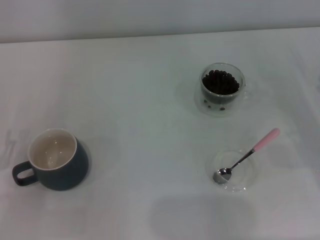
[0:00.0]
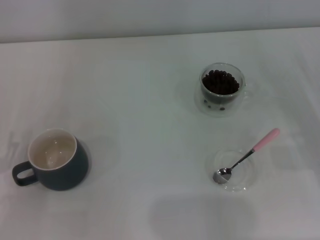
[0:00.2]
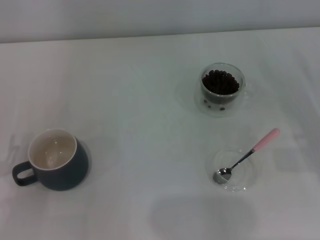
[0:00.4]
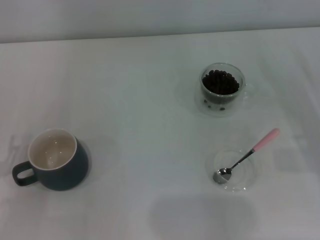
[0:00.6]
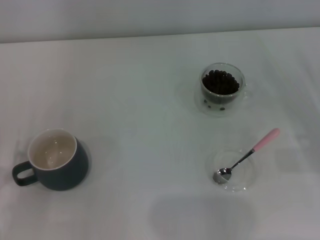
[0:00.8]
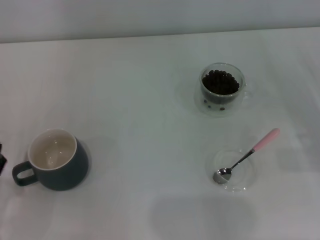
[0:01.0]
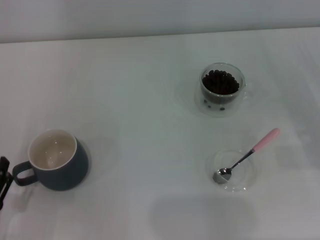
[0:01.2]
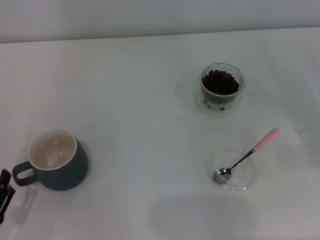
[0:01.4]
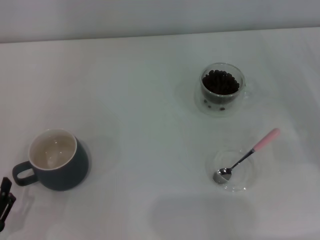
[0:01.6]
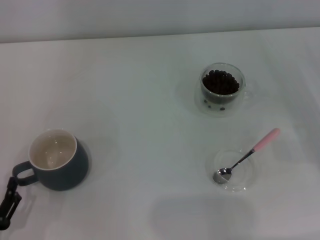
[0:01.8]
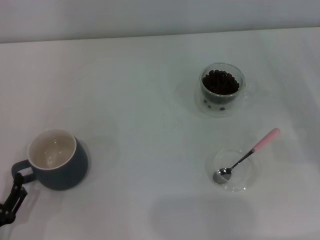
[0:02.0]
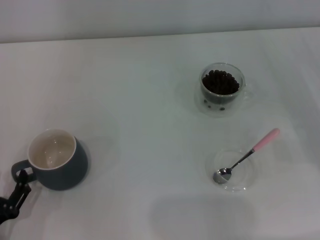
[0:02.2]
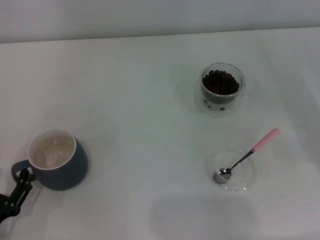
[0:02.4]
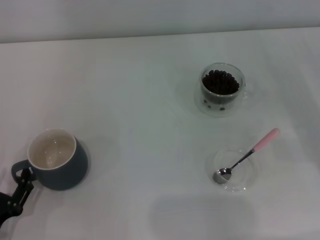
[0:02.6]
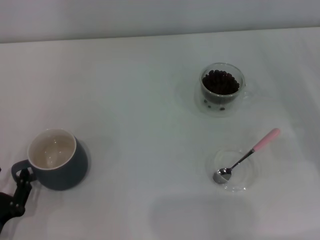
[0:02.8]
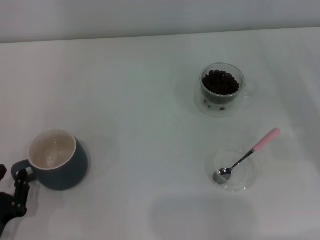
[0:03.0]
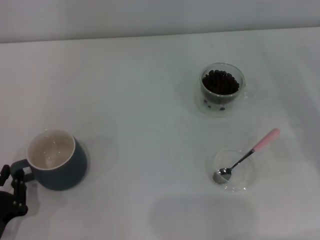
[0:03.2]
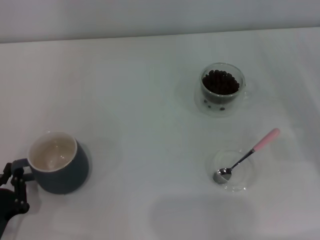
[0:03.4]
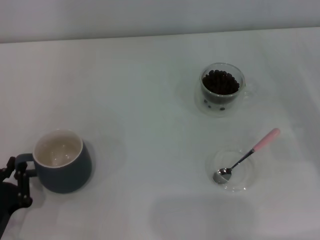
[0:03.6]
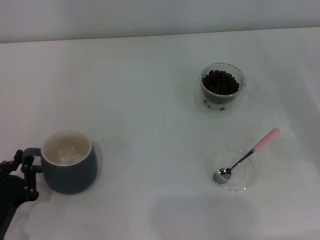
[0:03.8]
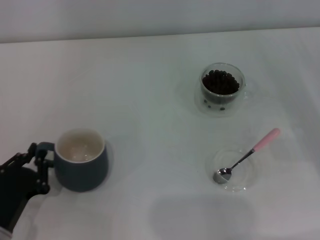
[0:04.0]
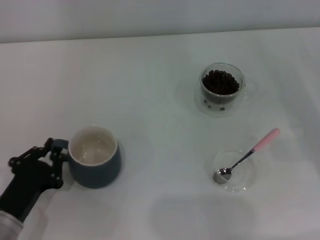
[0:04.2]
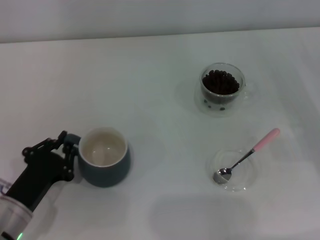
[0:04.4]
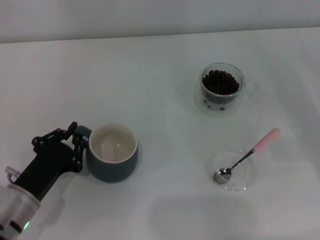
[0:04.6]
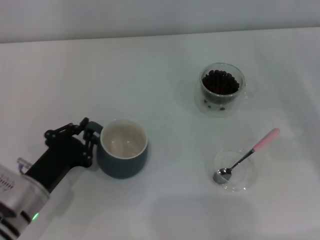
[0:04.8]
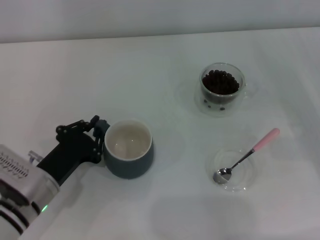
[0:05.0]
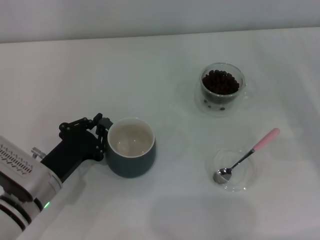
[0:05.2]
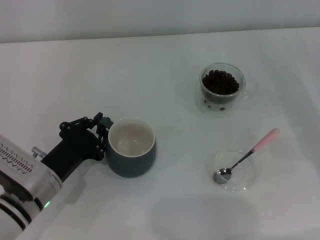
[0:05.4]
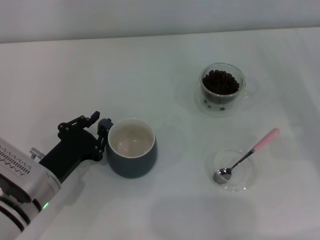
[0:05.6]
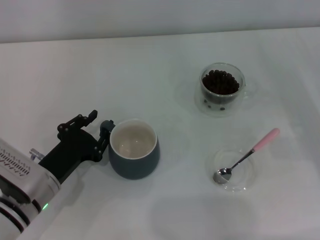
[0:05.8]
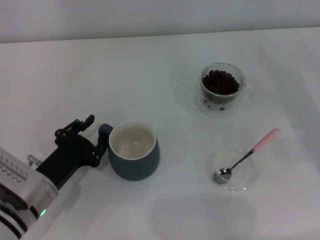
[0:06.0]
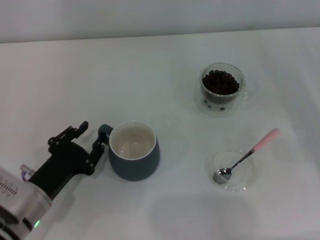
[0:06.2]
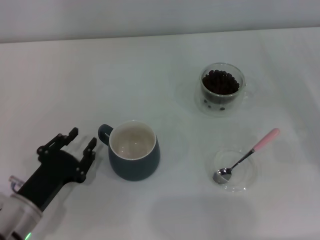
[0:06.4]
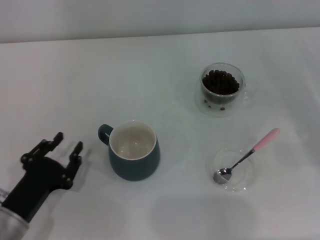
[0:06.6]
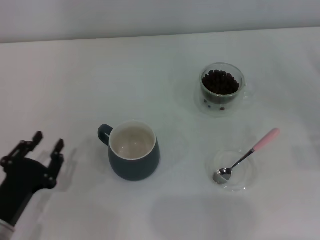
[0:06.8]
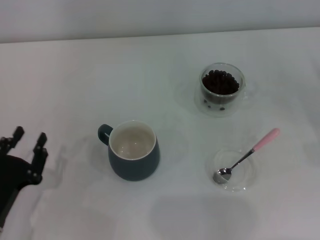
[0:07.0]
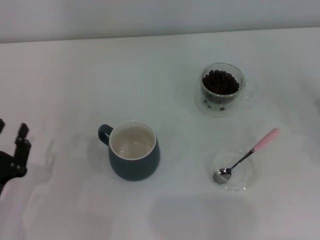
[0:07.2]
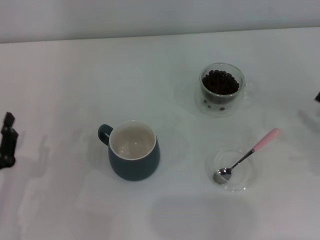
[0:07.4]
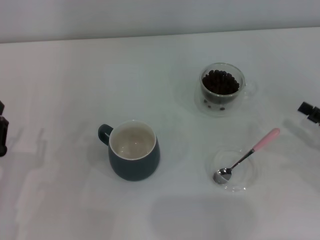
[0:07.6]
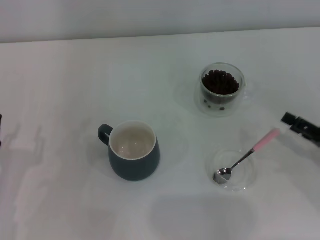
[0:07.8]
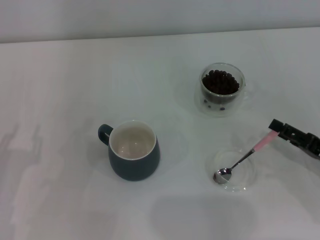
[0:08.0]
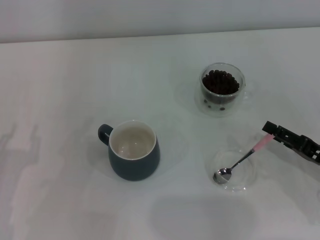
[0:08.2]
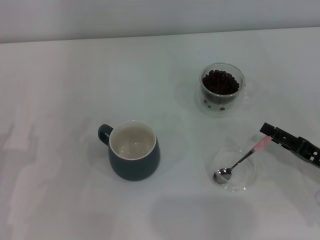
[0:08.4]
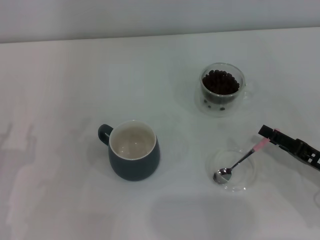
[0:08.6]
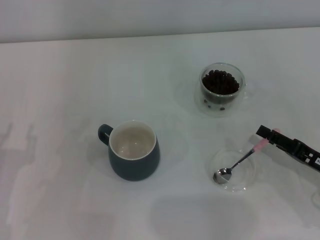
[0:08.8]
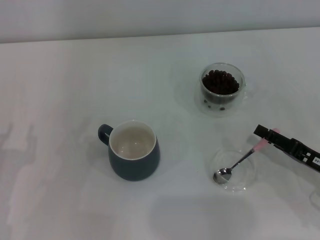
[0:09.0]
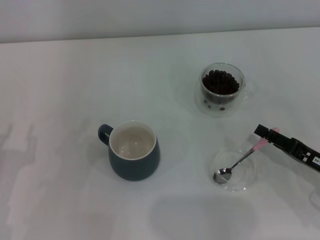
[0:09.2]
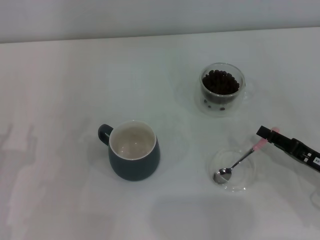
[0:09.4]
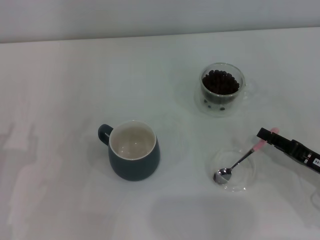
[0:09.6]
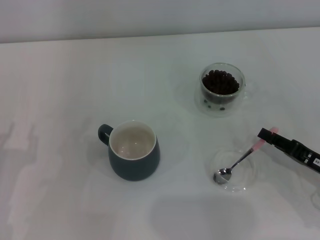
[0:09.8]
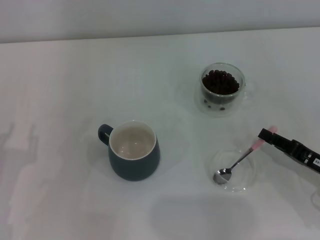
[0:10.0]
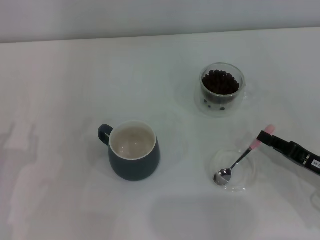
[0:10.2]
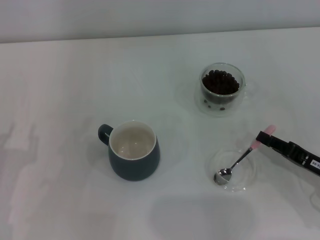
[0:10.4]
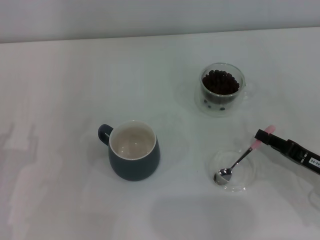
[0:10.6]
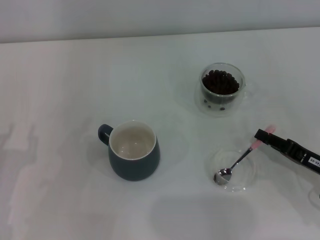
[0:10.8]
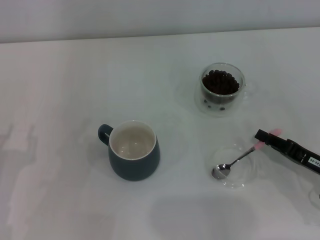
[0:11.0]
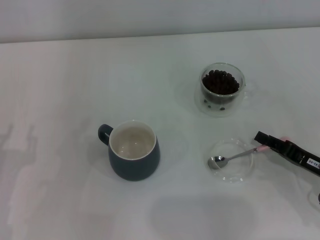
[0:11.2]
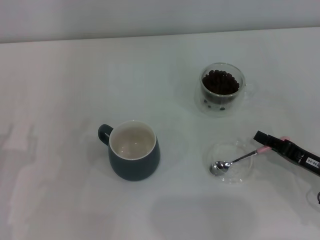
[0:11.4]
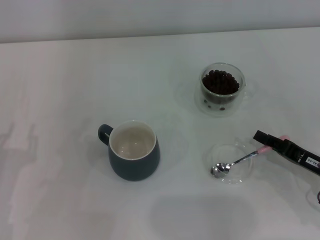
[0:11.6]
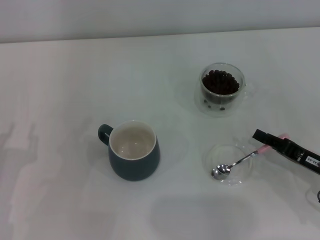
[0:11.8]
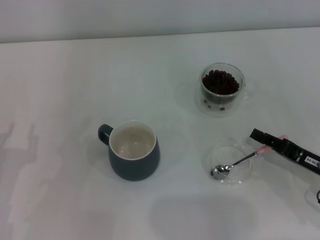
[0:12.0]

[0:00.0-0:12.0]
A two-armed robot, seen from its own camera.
Task of the whole recording: Use a pink spoon to take out the coffee beans from the glass and pour them into the gray cup.
Step, 0:00.0 to 0:06.6: Move the cup to the center of view with the left gripper.
0:00.0 to 0:01.6: The left gripper shifts roughly 10 cm backward.
0:01.6 to 0:03.0: The left gripper closes up.
0:03.0 to 0:04.4: The left gripper is displaced forward by approximately 5 cm, and closes.
0:04.4 to 0:06.0: The grippers make only small movements.
0:06.0 to 0:07.6: The left gripper goes approximately 10 cm to the left and backward.
0:07.6 to 0:09.0: The right gripper moves to the left, approximately 5 cm.
0:09.0 to 0:10.4: The right gripper closes up.
0:10.4 to 0:12.0: The two grippers keep their place.

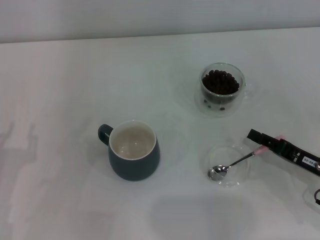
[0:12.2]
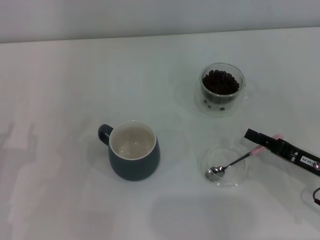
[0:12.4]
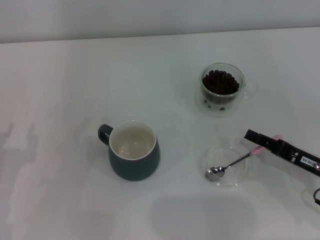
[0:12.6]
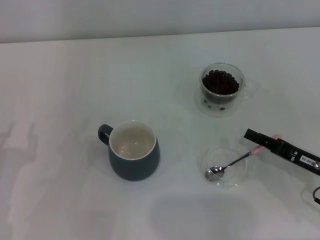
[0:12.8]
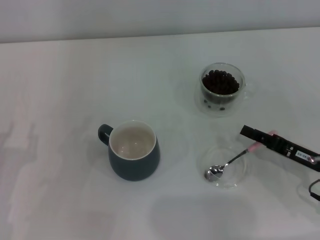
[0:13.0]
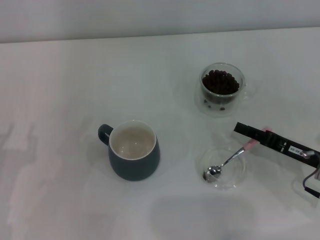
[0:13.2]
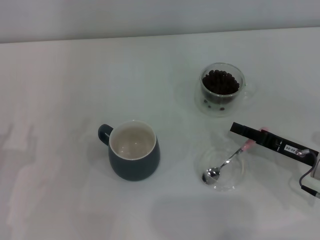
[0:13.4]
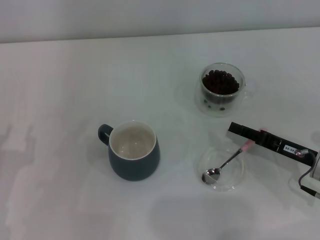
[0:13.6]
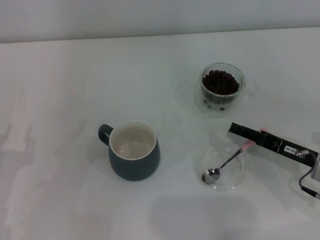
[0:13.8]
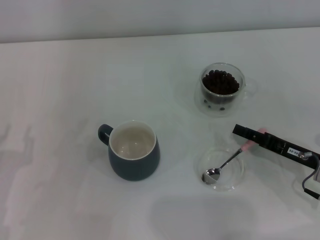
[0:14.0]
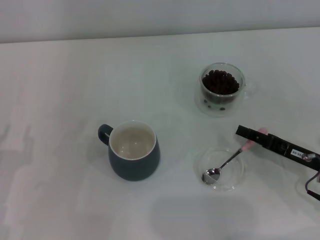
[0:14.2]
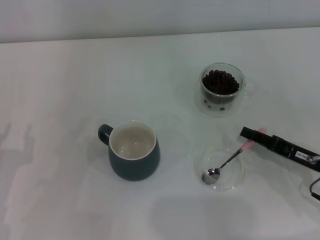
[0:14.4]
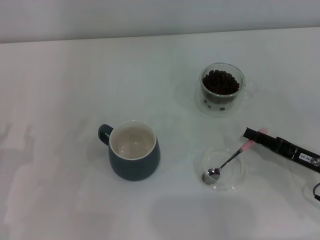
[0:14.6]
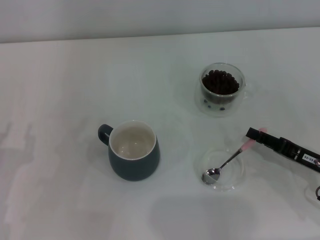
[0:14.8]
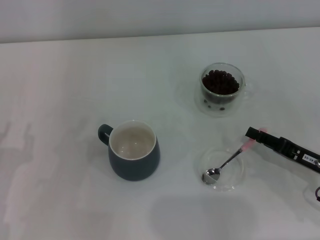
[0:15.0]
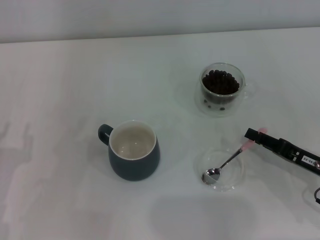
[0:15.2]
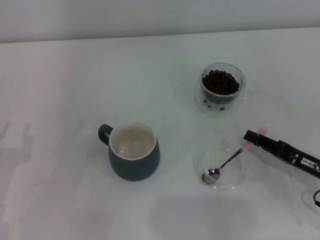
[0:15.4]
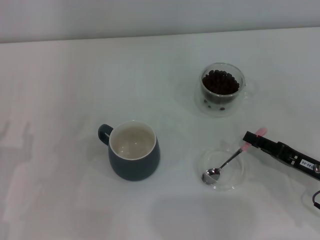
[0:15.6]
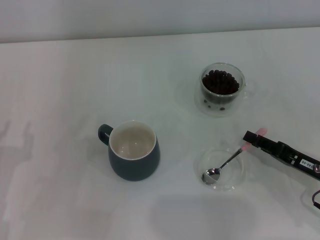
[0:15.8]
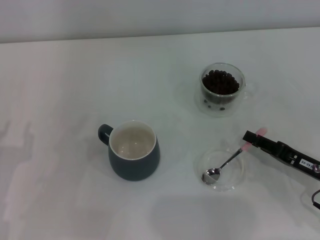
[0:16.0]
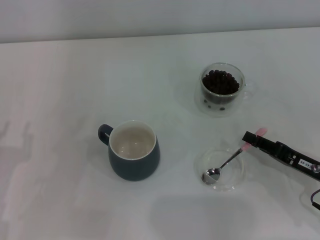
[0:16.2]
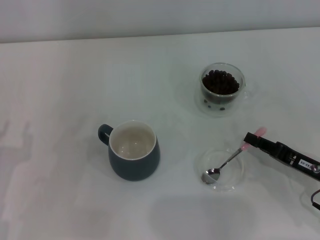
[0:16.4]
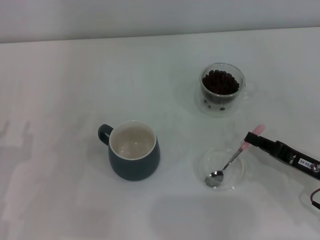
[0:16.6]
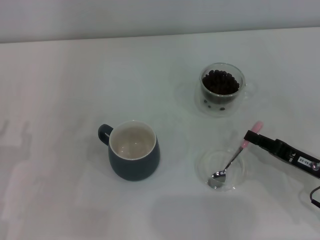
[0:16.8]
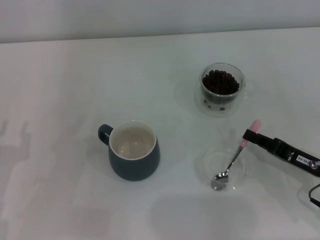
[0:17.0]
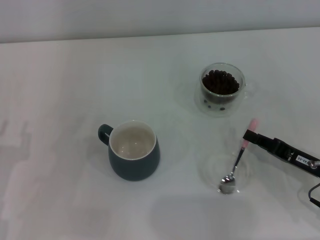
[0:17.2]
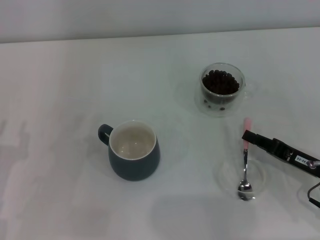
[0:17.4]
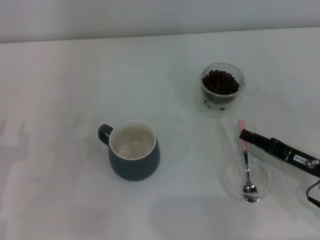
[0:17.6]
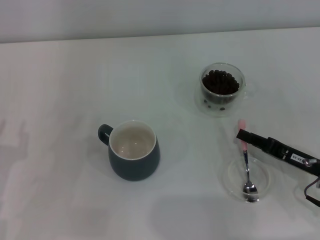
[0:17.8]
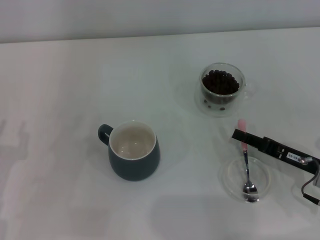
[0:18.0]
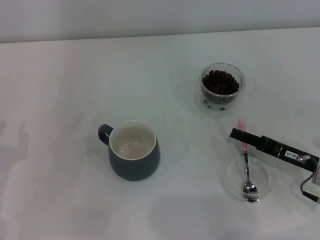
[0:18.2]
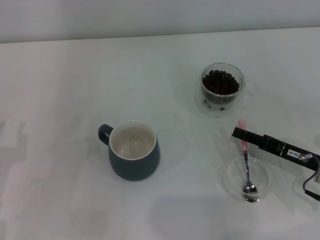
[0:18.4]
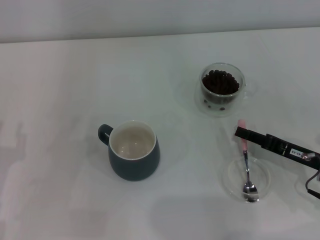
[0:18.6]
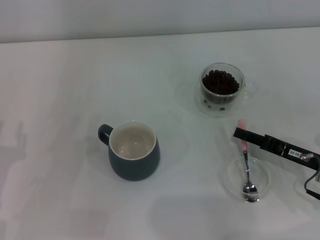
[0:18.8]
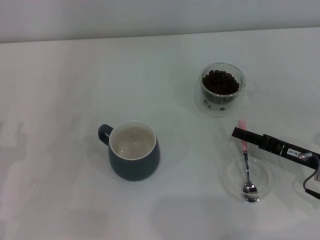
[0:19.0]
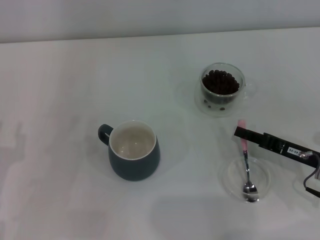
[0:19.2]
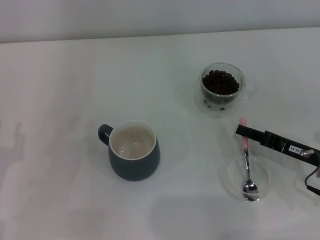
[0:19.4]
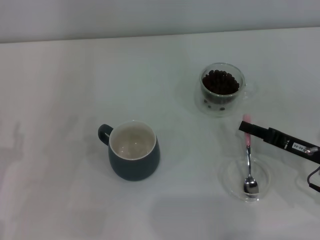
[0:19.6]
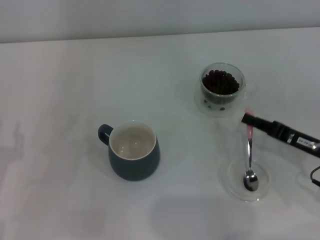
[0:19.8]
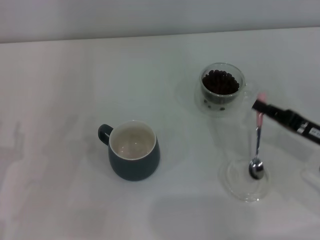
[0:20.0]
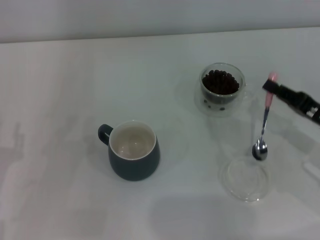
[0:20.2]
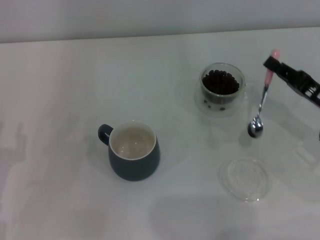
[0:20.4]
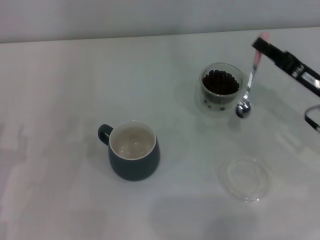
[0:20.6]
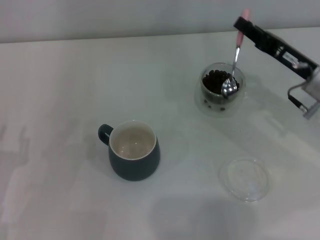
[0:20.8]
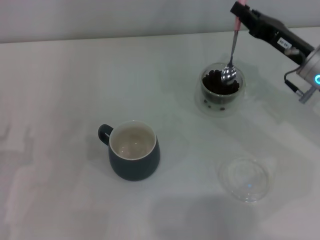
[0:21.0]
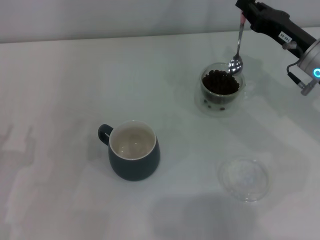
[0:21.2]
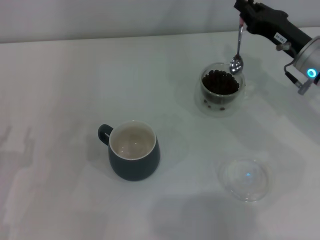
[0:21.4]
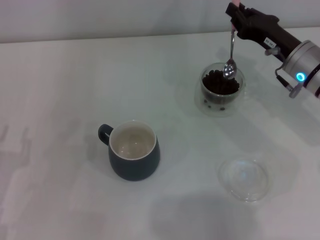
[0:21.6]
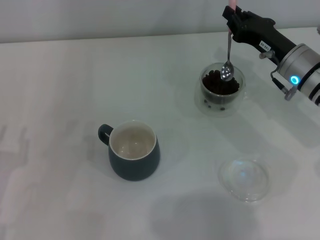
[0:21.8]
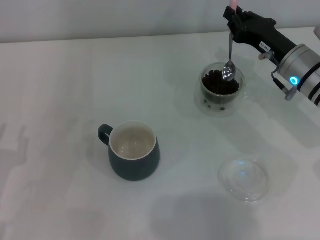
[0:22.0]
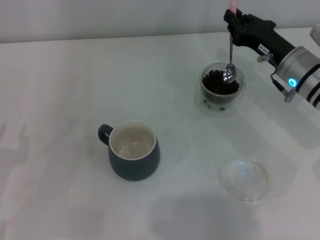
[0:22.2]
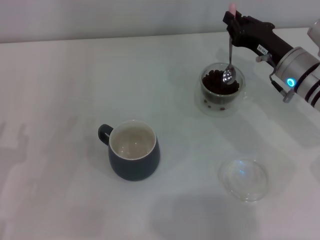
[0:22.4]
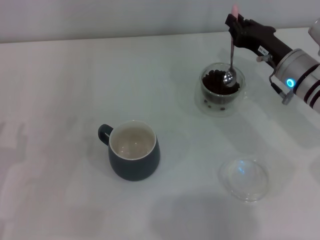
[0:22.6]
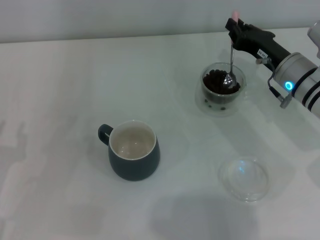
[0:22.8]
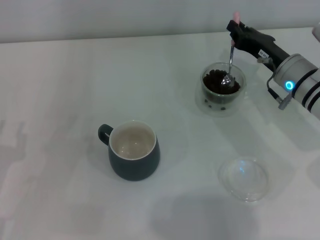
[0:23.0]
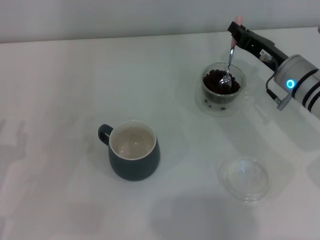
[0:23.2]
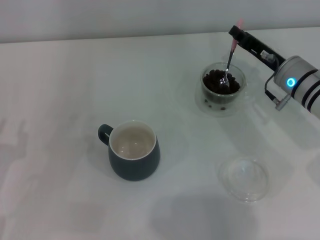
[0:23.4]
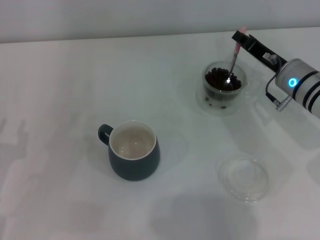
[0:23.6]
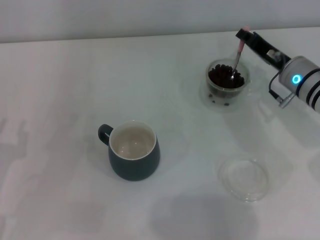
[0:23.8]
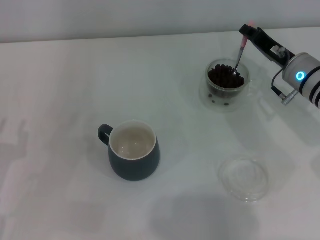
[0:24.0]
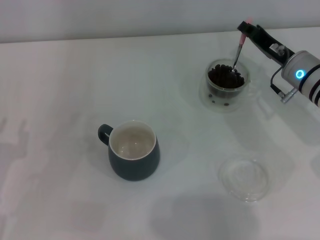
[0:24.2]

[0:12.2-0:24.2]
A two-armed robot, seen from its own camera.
Task of the whole recording: Use a pink spoon to take out the coffee beans from the glass and pour them into the gray cup.
Step, 0:12.2 to 0:20.2: Pick up the spoon with the right gripper.
0:12.2 to 0:15.2: The grippers move only a little.
0:15.2 to 0:16.6: The two grippers keep their place.
0:16.6 to 0:19.8: The grippers make only small movements.
0:19.8 to 0:21.2: The right gripper heads forward and upward, covering approximately 15 cm.
0:21.2 to 0:22.6: The grippers stay close to where they were, moving slightly.
